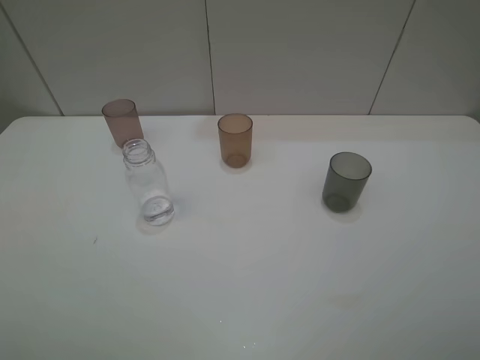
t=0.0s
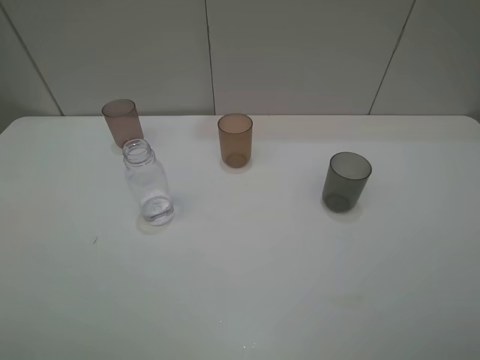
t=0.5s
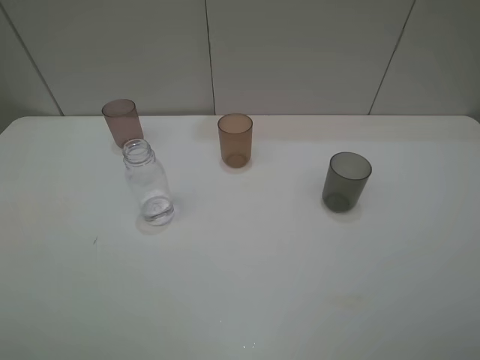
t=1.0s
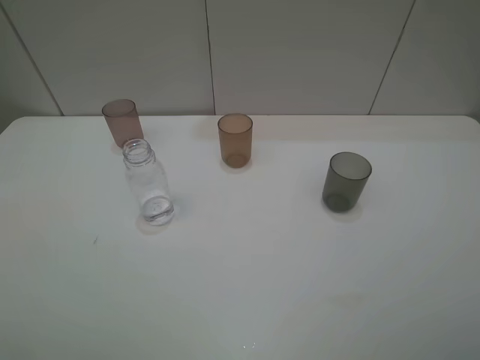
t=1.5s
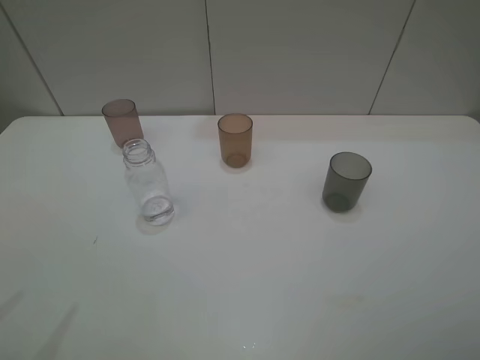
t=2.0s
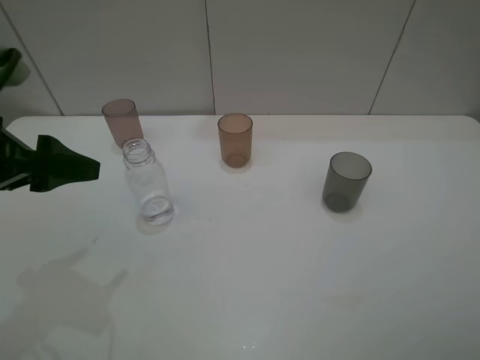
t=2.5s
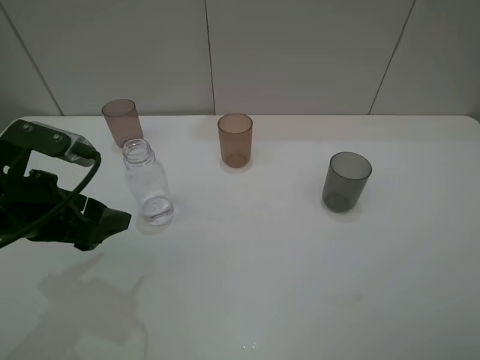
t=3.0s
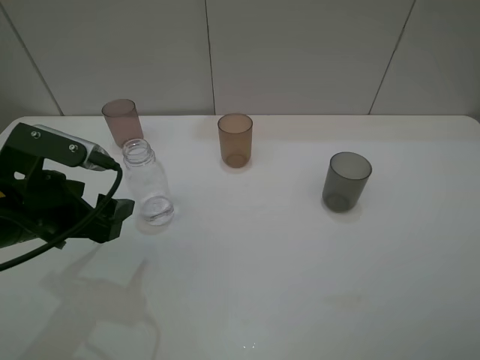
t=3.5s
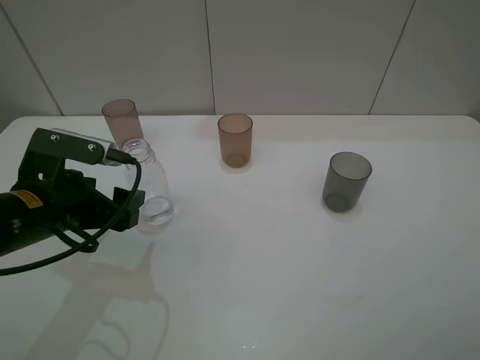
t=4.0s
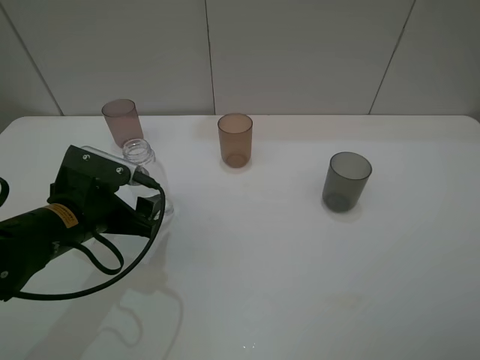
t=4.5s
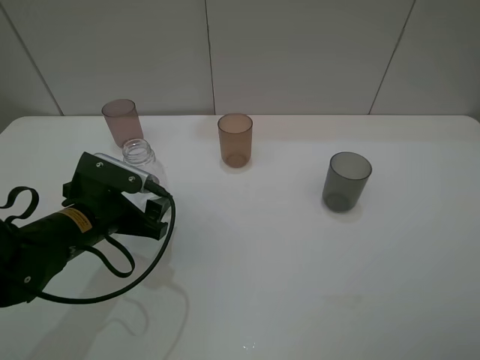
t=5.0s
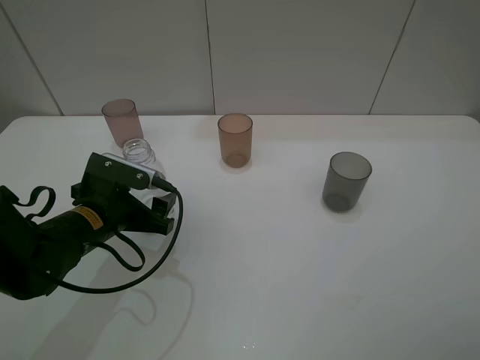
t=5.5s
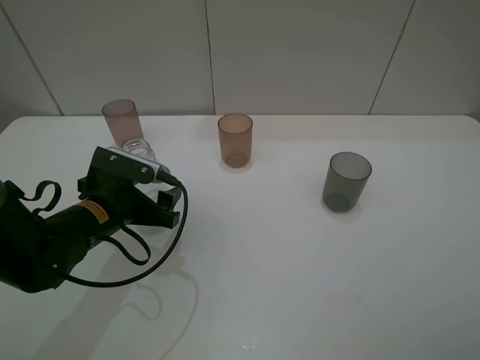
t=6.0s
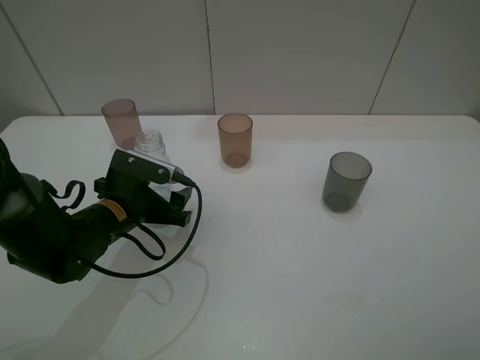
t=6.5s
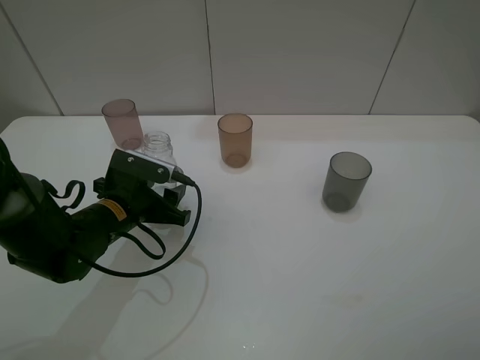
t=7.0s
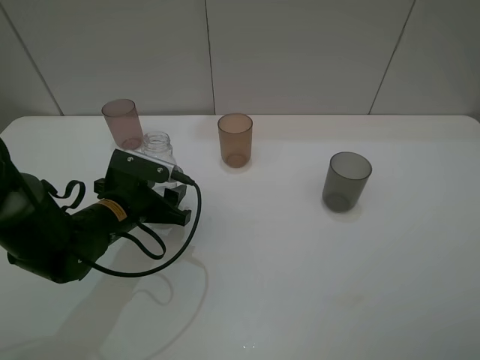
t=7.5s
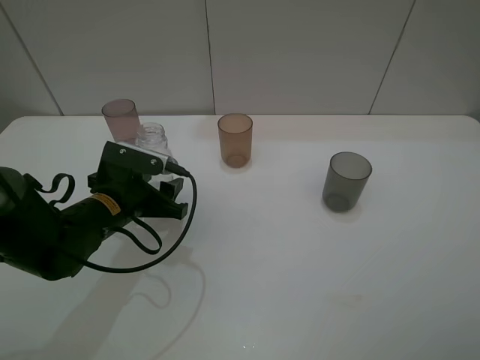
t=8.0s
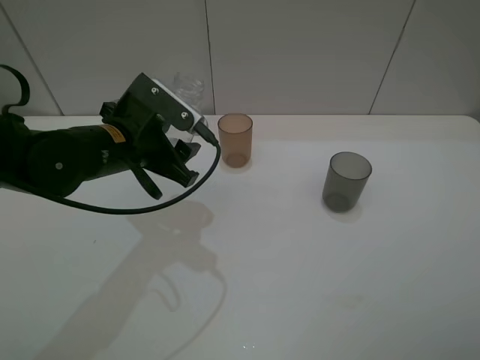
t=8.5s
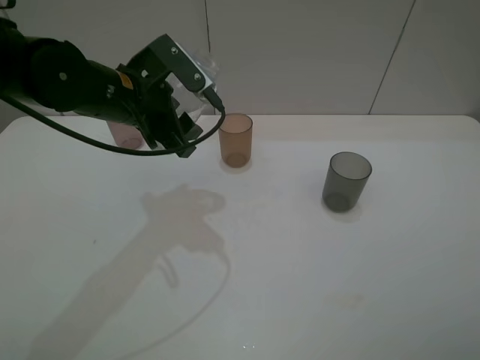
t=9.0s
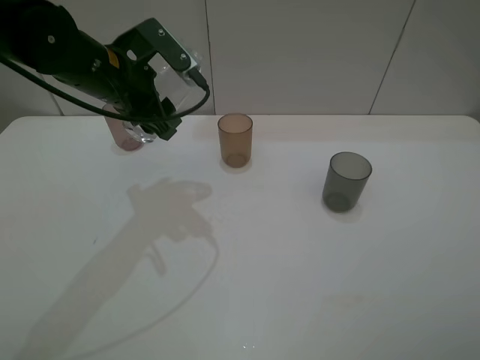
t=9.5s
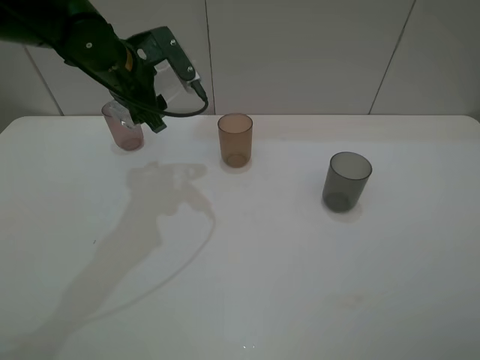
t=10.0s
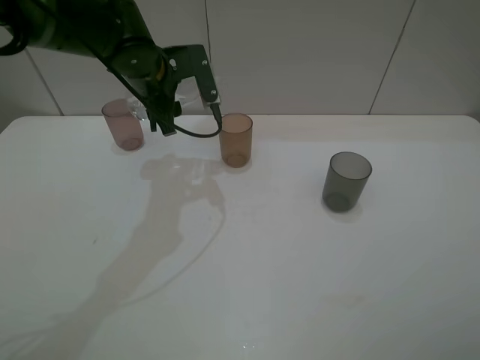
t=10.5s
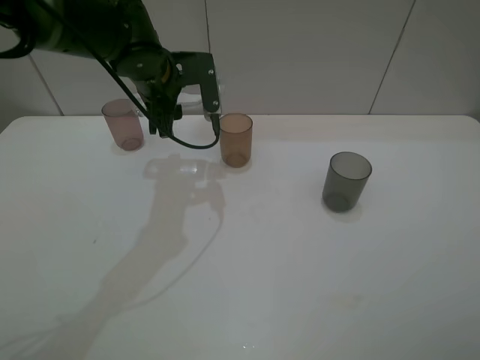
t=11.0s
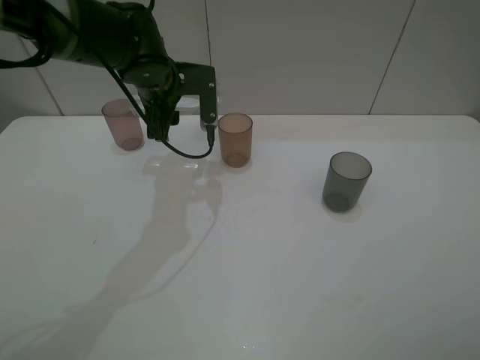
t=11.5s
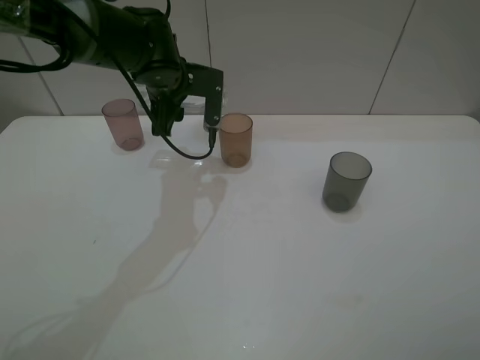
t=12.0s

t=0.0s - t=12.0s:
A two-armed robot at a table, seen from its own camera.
Task of the whole recording: pick up the bottle filled with water and pour water into the middle cup of the three cups.
Step, t=0.0s - t=6.5s: Grasp the transparent bottle with the left gripper.
Step, t=7.0s - t=11.5s: Pour water from transparent bottle to brown cup with the left gripper.
t=2.0s - t=4.0s: The left gripper goes roughly 20 cm downward, to the right and forward.
t=4.0s - t=6.0s: The left gripper moves downward, some 5 cm.
t=6.0s - t=8.0s: The left gripper closes its fingers.
t=8.0s - t=10.0s: The left gripper is displaced forward and upward by about 20 cm.
t=10.0s - t=12.0s: The left gripper goes roughly 5 cm to the right.

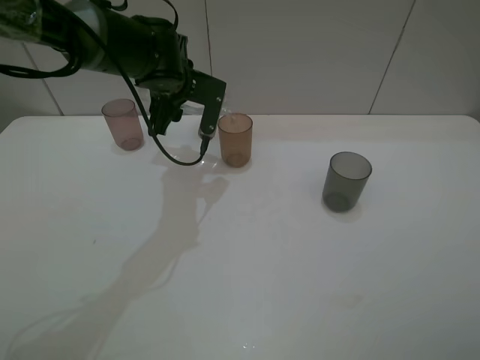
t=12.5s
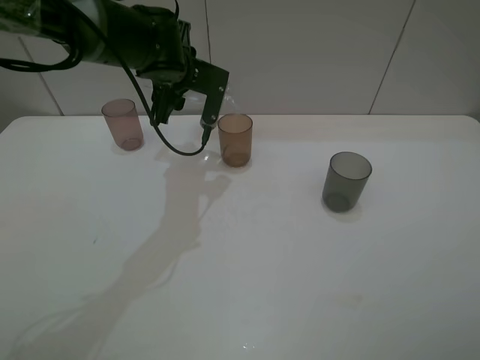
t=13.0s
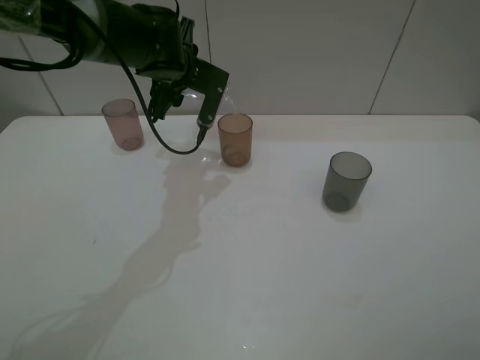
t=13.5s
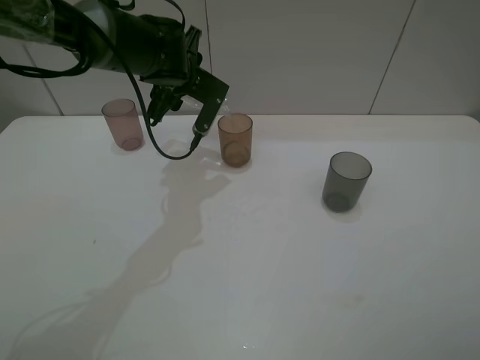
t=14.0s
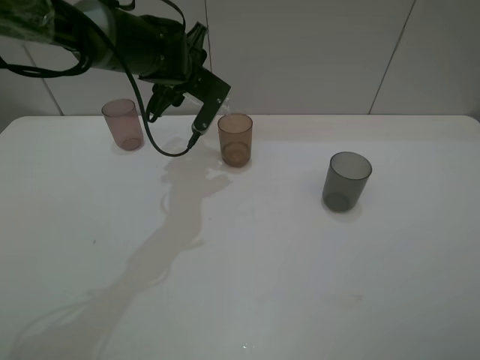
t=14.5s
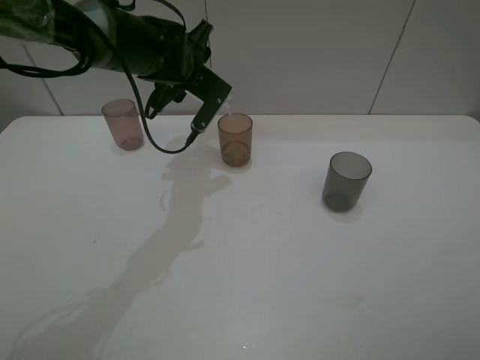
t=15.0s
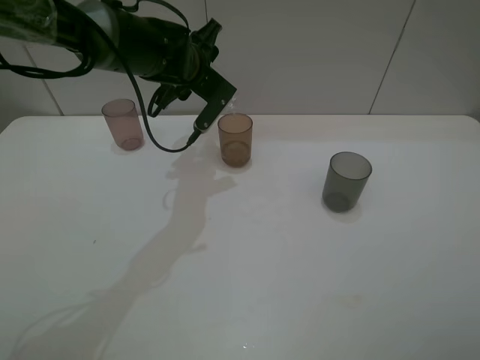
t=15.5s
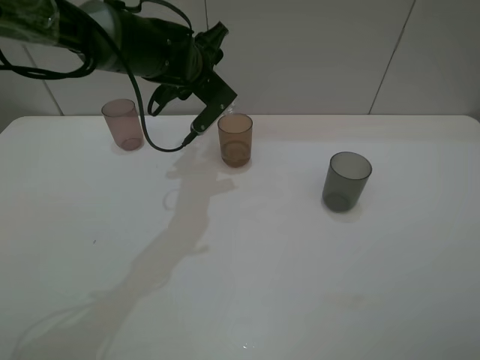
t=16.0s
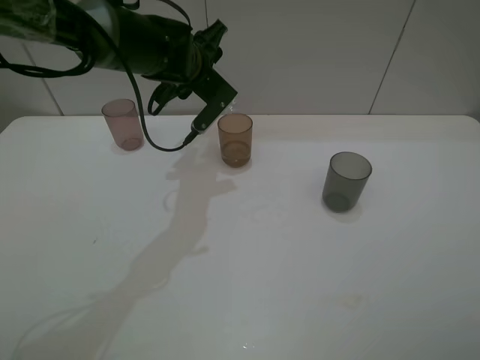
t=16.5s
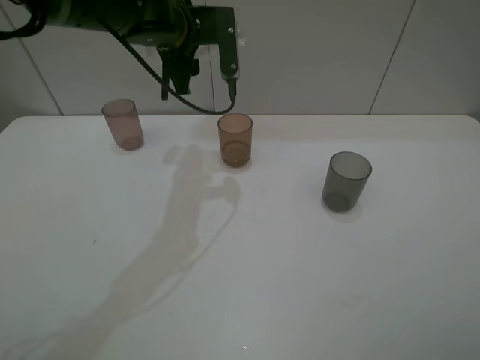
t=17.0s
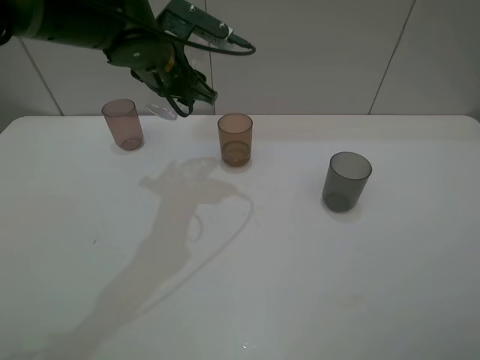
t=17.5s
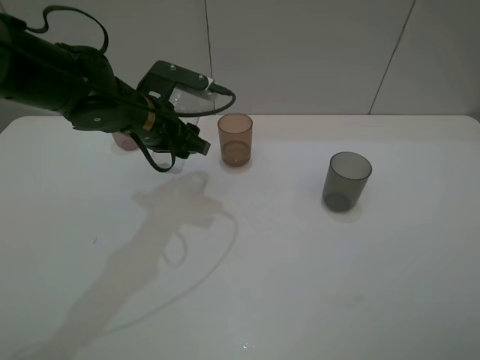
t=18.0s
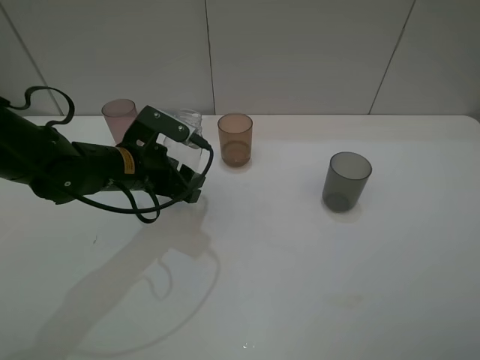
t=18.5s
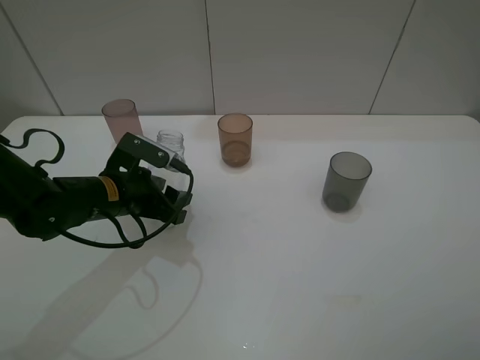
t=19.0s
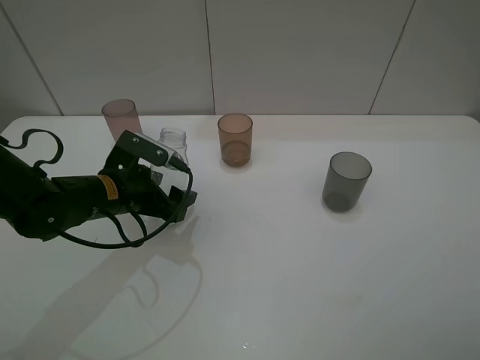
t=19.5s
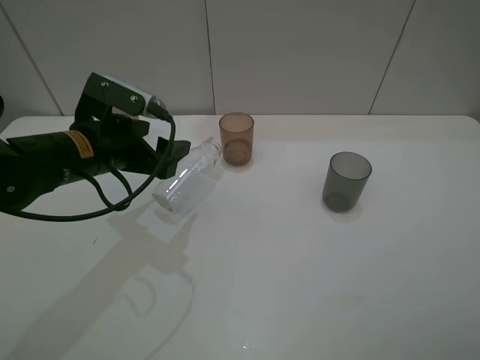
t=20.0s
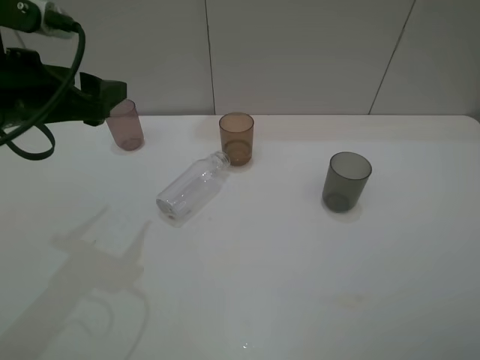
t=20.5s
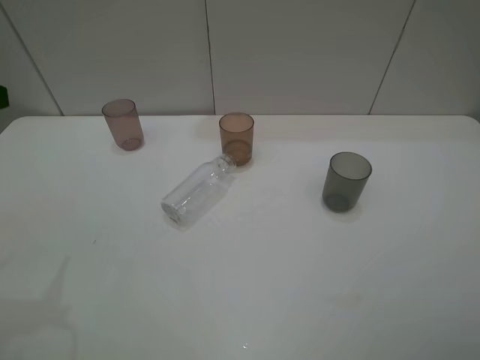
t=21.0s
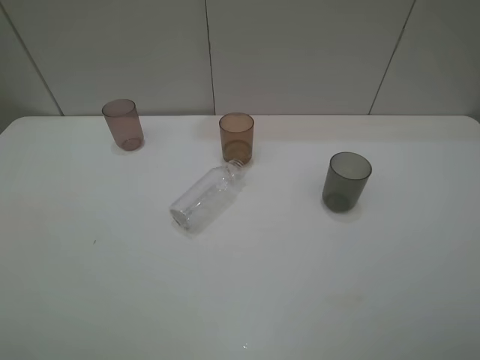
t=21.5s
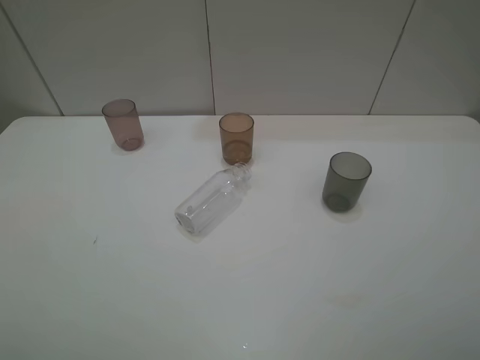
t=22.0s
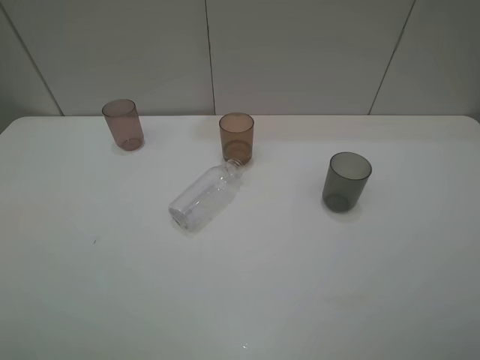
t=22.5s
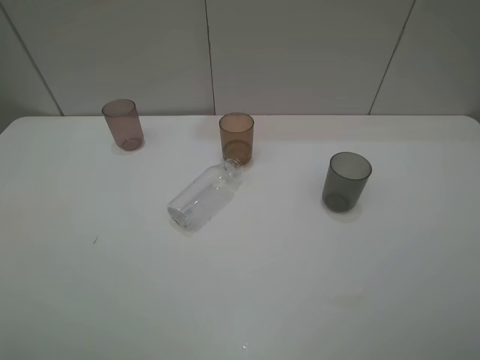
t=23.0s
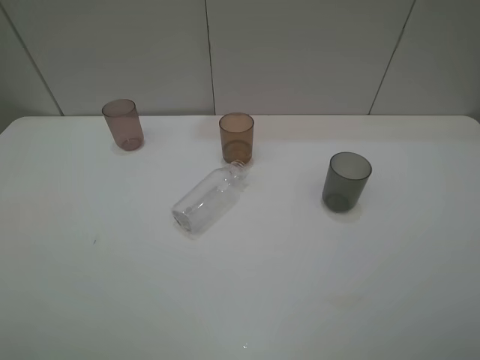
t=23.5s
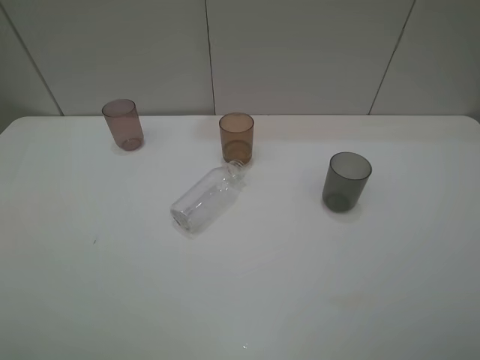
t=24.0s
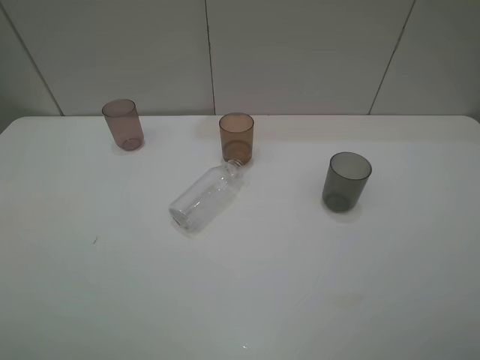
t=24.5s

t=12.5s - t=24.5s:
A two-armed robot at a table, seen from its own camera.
Task of the whole recording: pick up the bottle filled with water and pour water into the middle cup of the three cups.
t=12.5s - t=14.5s: The grippers move only a little.
t=14.5s - t=16.5s: There are only small adjustments of the grippers.
t=16.5s - t=18.5s: The left gripper heads backward, to the left and downward, covering roughly 15 cm.
t=18.5s - t=20.5s: The left gripper travels upward and to the left by some 15 cm, and opens up.
t=20.5s - t=22.5s: The left gripper shifts roughly 25 cm backward.
t=22.5s - t=24.5s: Both grippers stay put.
